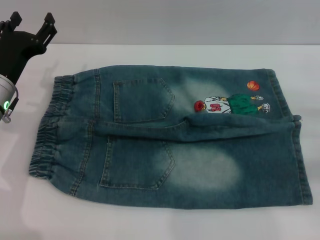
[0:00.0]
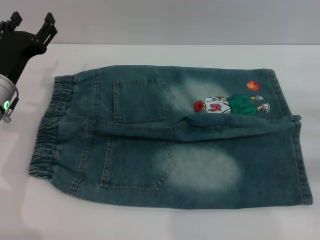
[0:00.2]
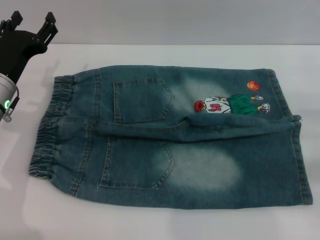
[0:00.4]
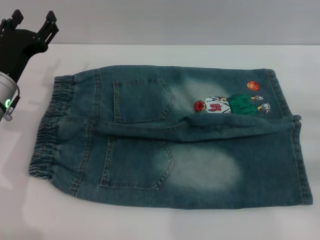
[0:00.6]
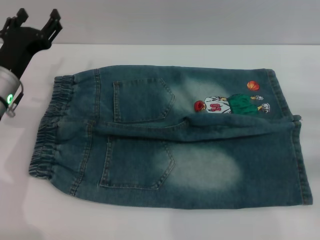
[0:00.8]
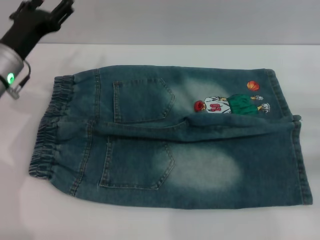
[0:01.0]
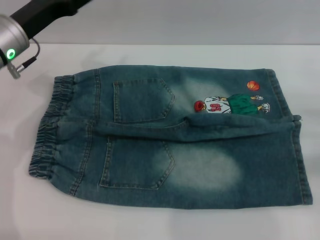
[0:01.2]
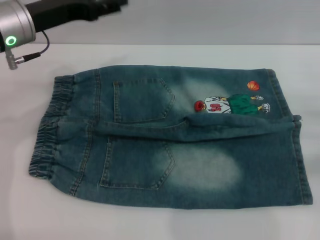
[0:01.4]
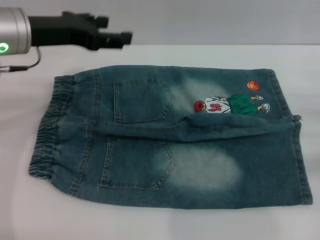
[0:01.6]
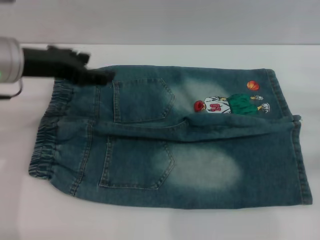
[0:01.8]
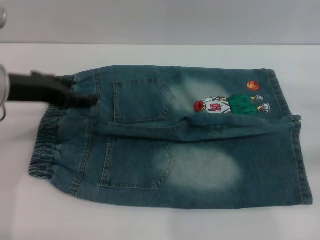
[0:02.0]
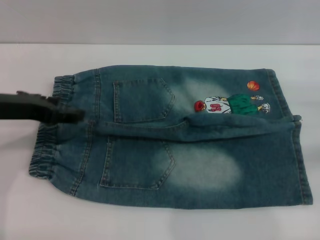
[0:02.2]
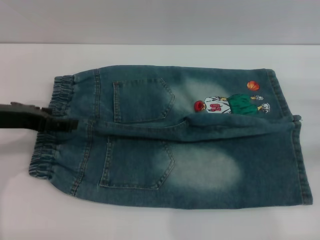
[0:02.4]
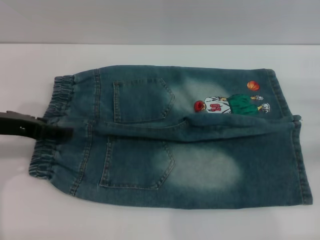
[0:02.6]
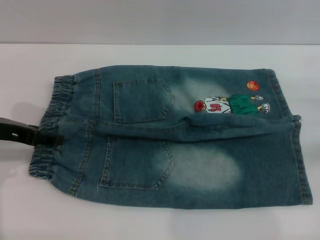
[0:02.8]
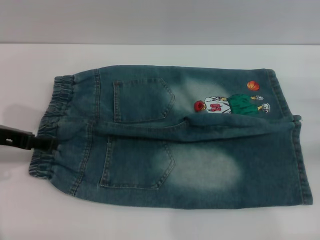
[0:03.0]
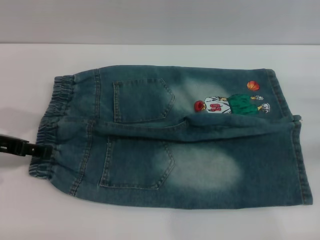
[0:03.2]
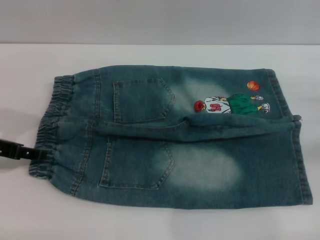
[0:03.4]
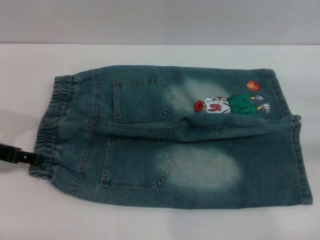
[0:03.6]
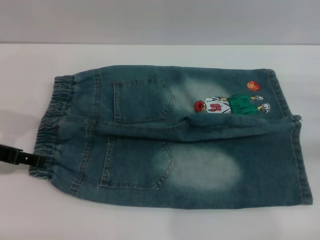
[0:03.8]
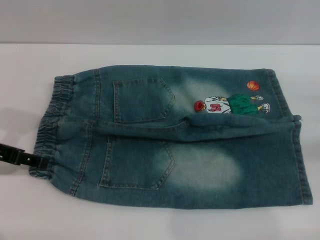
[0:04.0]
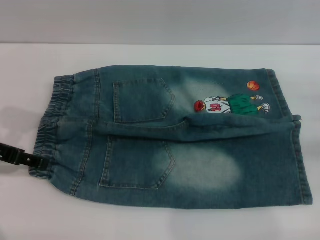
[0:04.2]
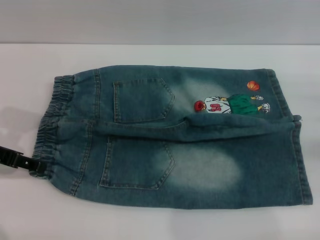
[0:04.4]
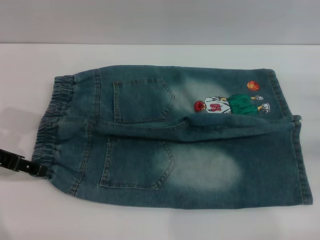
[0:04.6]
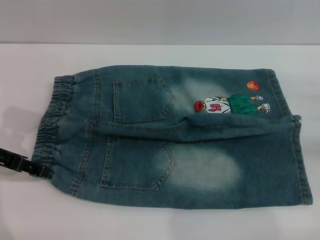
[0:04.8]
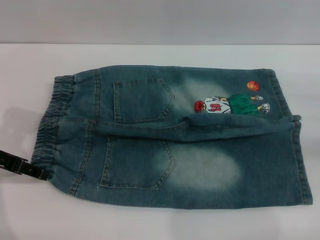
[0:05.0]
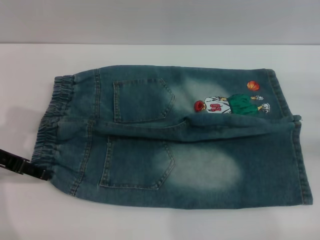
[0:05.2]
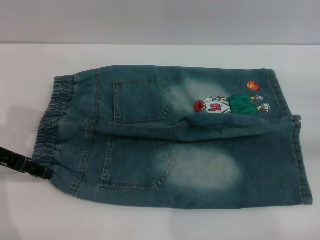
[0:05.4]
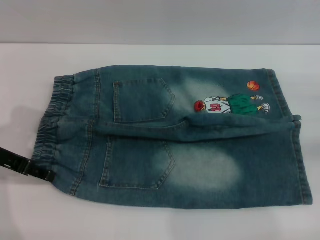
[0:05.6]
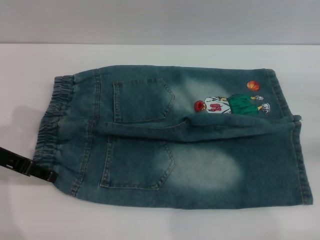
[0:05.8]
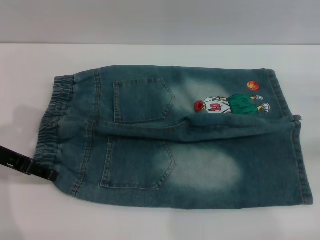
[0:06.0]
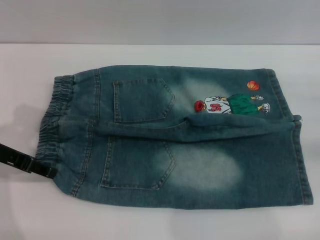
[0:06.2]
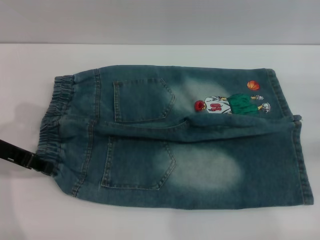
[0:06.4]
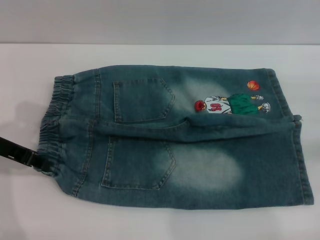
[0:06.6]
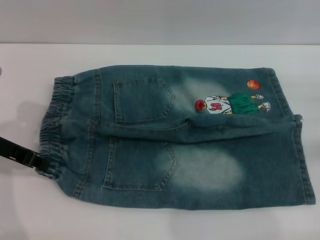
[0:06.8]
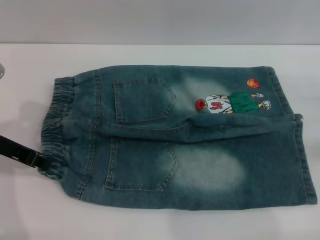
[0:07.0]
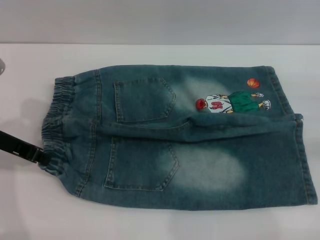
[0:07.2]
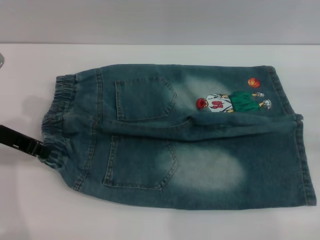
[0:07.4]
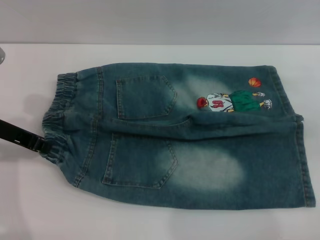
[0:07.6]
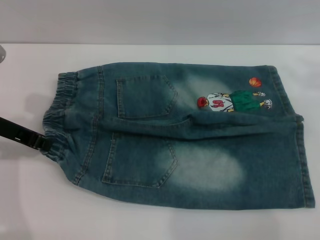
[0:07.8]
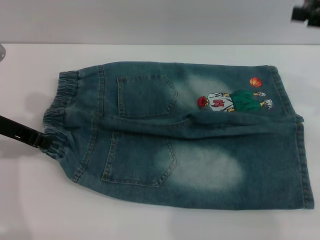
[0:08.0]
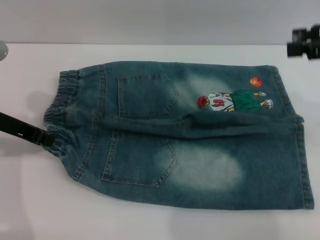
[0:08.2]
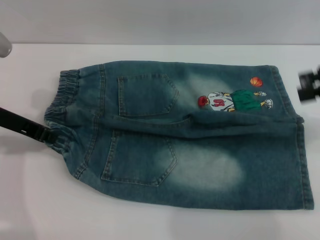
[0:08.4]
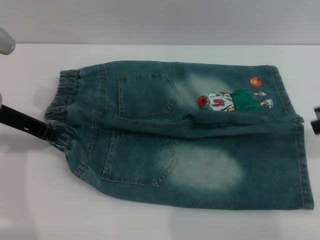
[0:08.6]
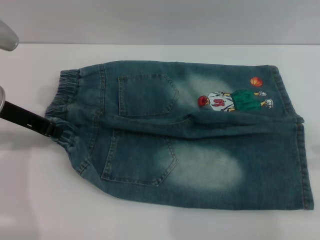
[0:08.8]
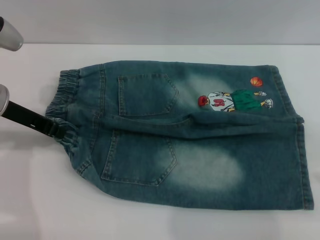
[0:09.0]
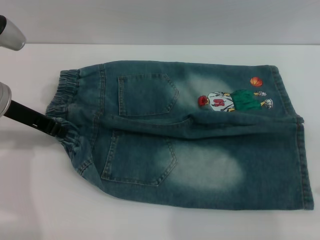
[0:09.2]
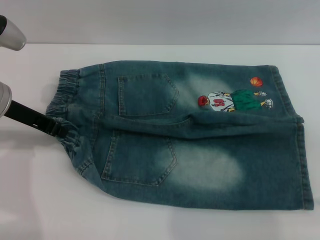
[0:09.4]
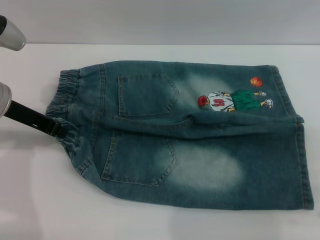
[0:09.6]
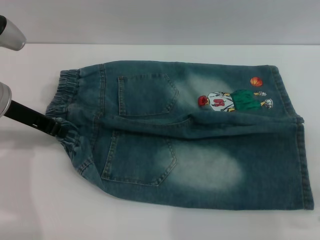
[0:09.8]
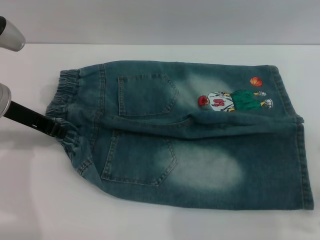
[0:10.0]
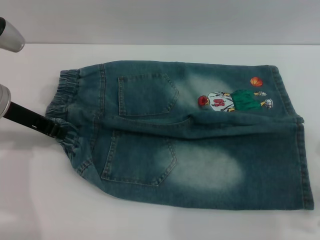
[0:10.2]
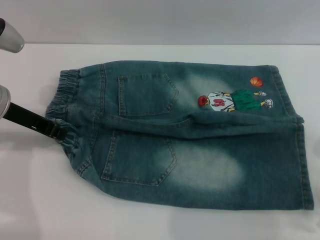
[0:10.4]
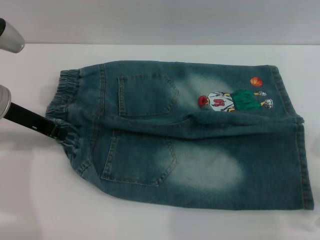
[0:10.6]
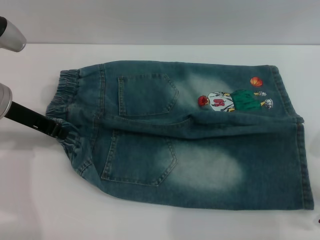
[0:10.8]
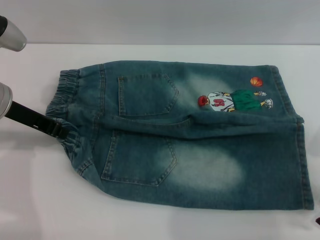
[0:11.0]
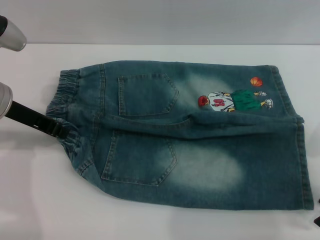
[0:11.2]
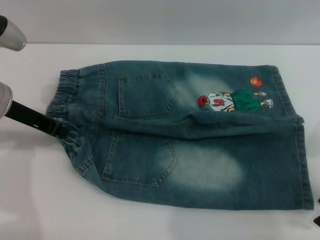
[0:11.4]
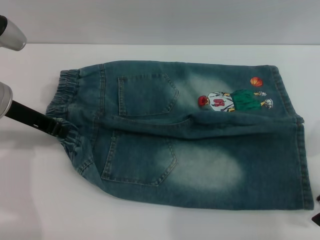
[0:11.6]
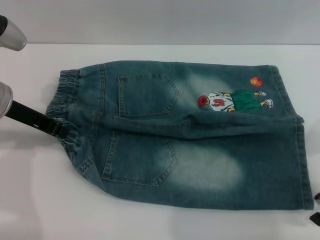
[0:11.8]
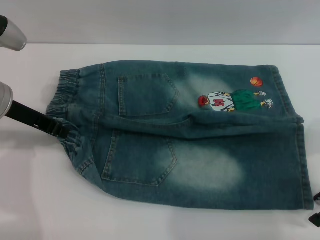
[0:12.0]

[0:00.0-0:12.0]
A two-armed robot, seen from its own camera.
0:00.0 to 0:01.6: The left gripper moves upward, approximately 15 cm.
0:01.6 to 0:03.0: The left gripper travels to the left, downward and backward by roughly 15 cm.
0:03.0 to 0:04.4: The grippers stay close to where they were, moving slightly.
0:06.0 to 0:07.6: The left gripper closes its fingers; the right gripper travels upward by roughly 5 cm.
0:10.4 to 0:12.0: The grippers make only small movements.

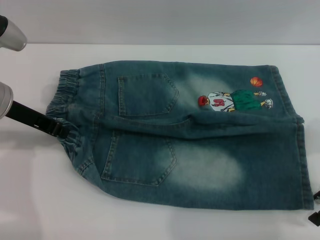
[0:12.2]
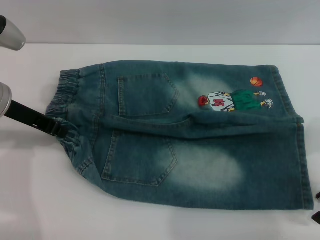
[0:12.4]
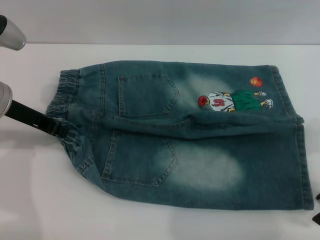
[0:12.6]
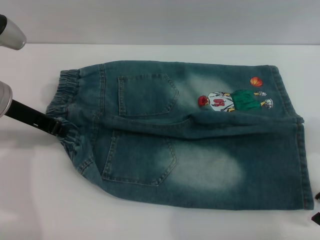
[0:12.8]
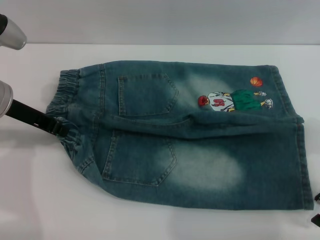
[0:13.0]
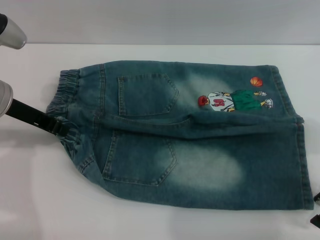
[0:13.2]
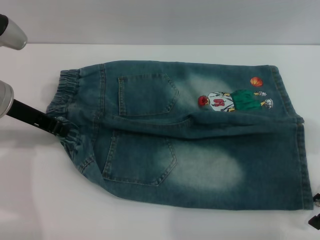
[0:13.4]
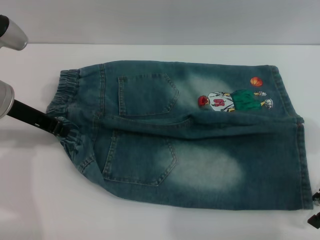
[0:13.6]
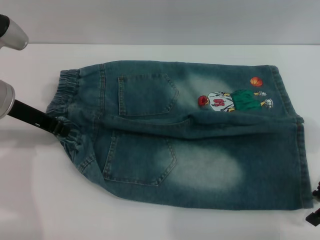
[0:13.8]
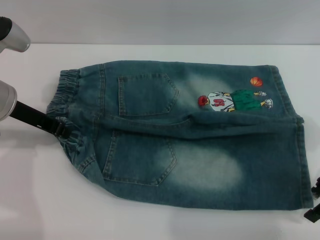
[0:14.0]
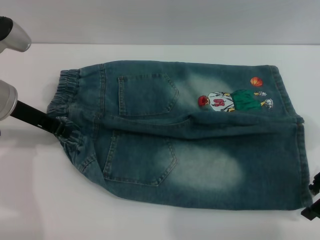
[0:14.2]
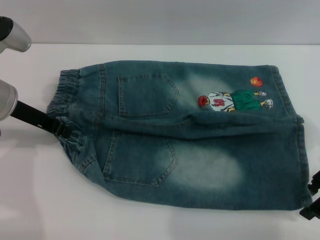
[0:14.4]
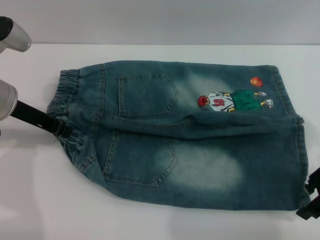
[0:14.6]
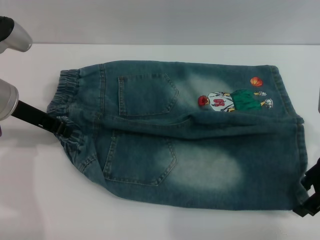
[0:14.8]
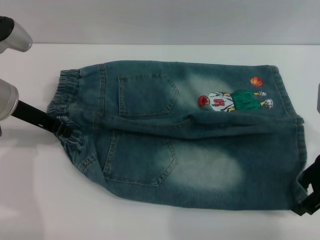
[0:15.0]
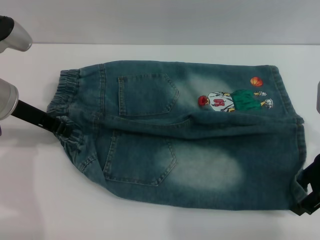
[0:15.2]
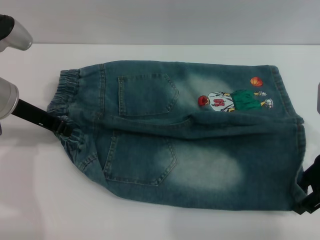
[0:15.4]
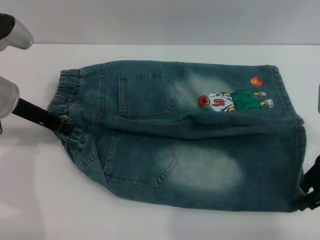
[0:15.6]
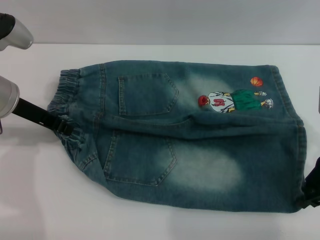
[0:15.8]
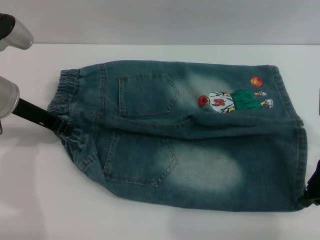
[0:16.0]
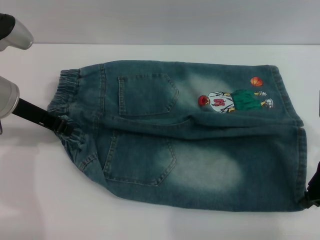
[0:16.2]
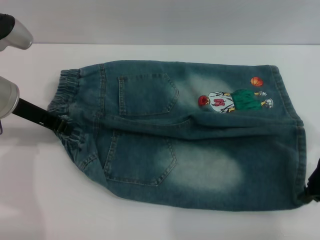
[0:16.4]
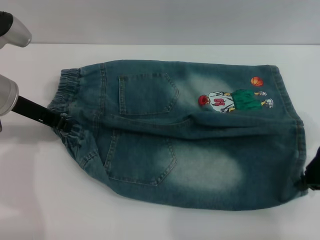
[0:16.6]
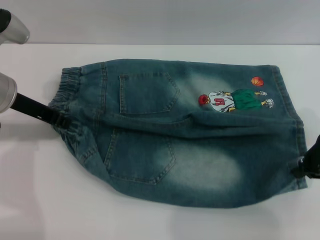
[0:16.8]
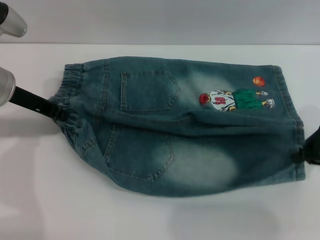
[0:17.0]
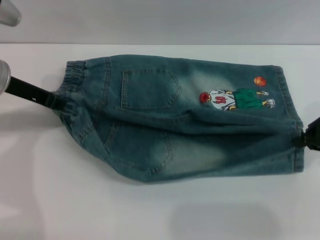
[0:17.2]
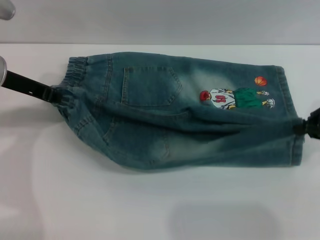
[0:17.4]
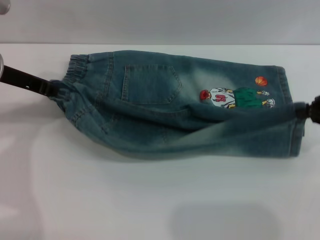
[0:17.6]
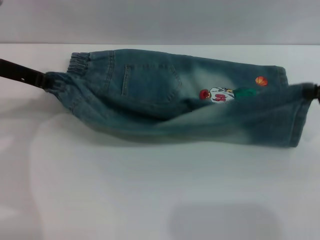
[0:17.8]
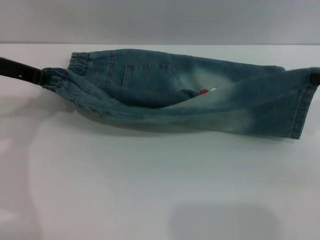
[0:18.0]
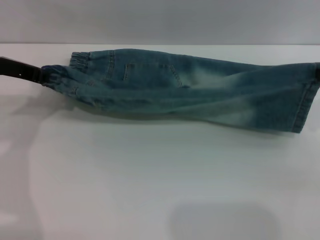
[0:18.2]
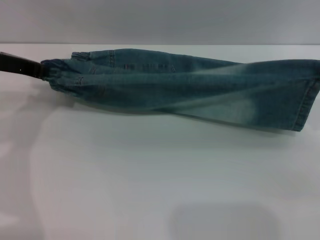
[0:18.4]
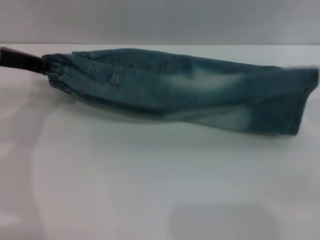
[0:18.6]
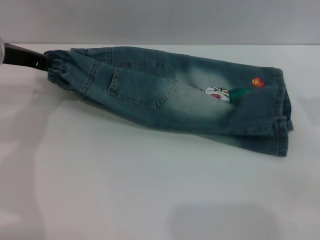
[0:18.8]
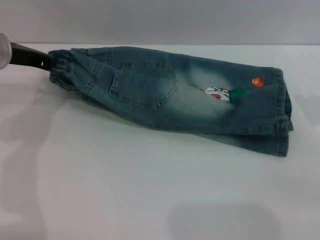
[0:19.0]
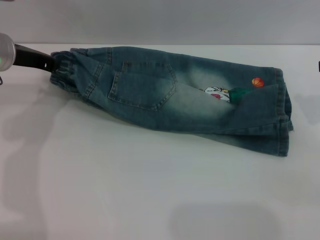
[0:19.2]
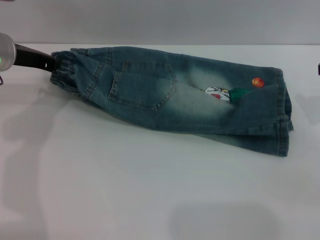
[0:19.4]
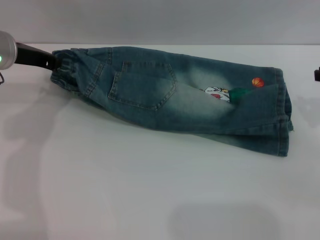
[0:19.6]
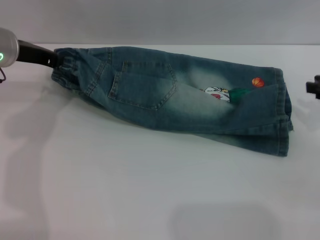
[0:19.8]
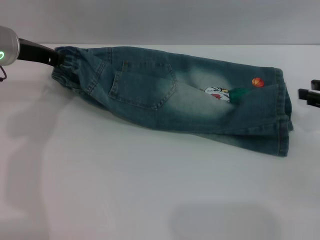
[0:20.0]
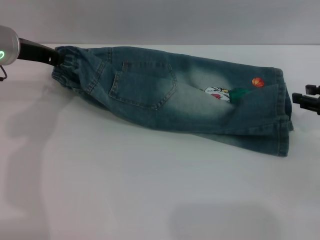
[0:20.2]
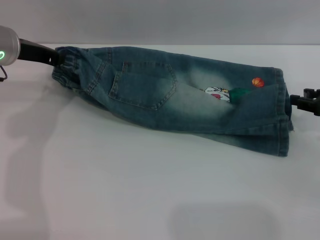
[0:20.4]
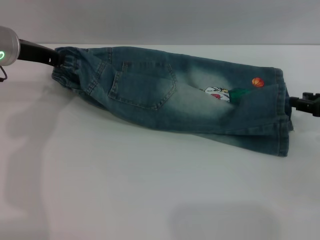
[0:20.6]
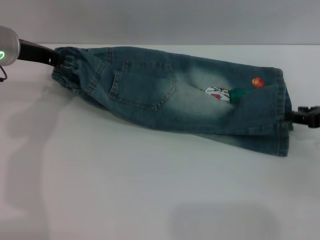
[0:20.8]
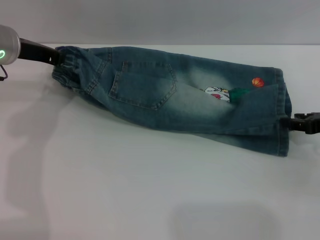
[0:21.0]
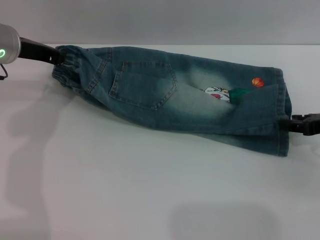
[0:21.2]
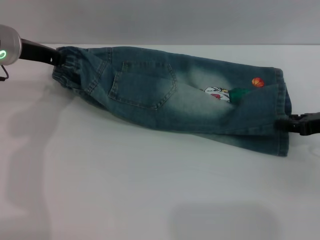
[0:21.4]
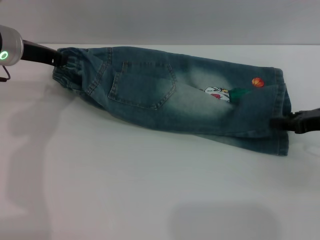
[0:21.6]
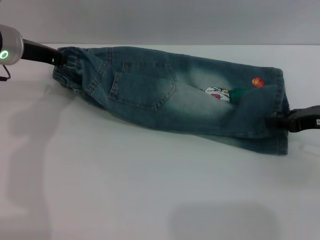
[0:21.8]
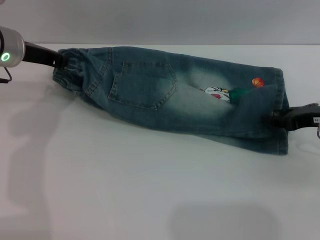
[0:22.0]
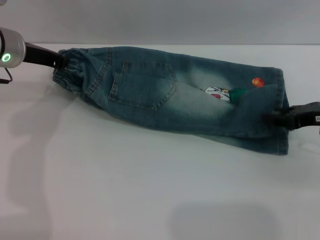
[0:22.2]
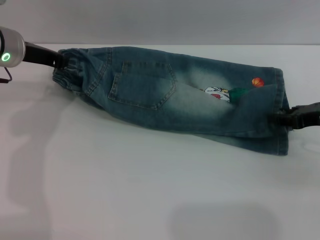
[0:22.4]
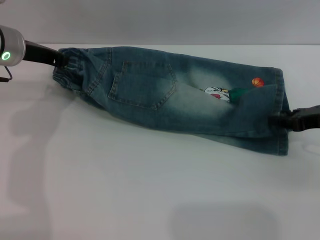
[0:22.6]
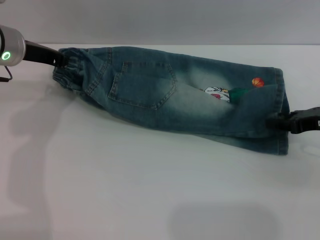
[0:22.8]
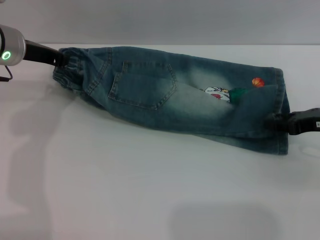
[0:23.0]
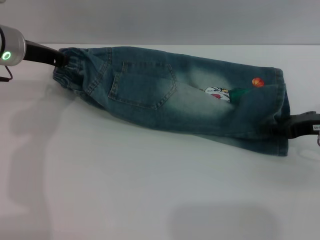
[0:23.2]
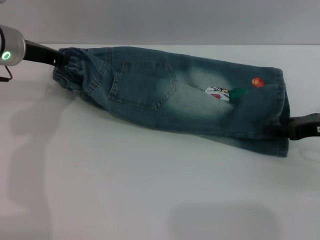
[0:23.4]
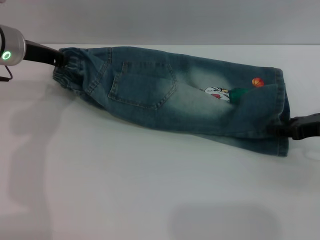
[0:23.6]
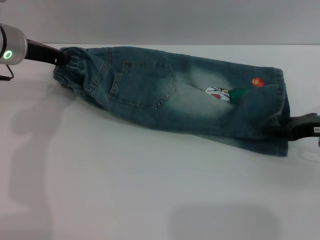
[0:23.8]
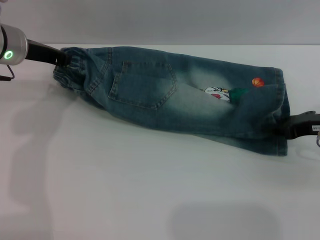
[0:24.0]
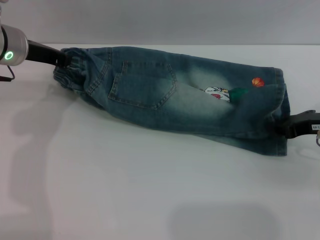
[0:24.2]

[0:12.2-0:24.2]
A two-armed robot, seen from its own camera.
0:12.2 to 0:15.2: There are only small adjustments of the grippers.
0:15.2 to 0:16.6: The right gripper closes its fingers.
0:16.6 to 0:18.2: The right gripper heads to the right, covering some 5 cm.
0:18.2 to 0:19.8: The right gripper goes approximately 5 cm downward.
0:19.8 to 0:21.2: The right gripper ends up some 5 cm from where it was, and opens up.
0:21.2 to 0:22.6: The grippers stay close to where they were, moving slightly.
0:22.6 to 0:24.2: Neither gripper changes place.
